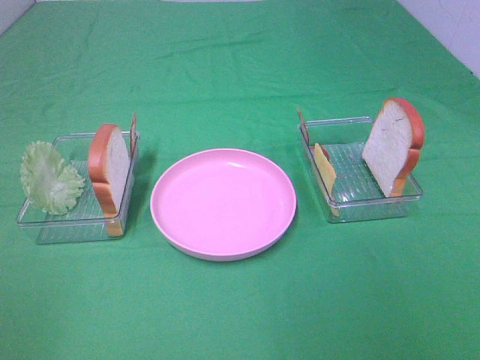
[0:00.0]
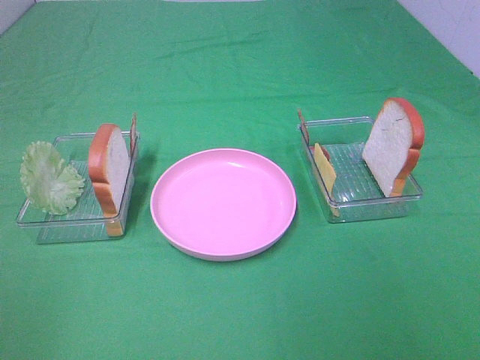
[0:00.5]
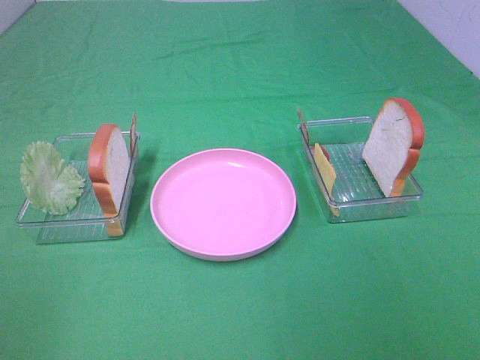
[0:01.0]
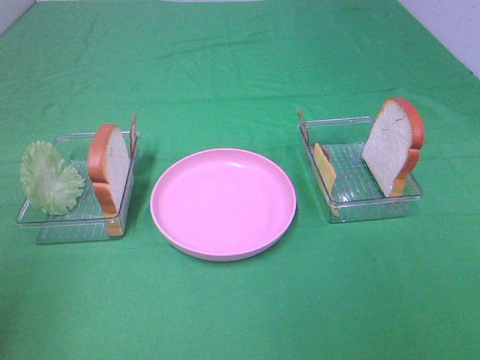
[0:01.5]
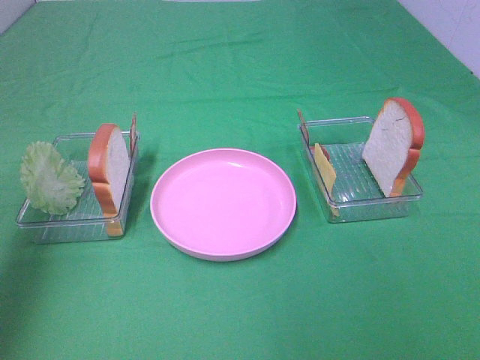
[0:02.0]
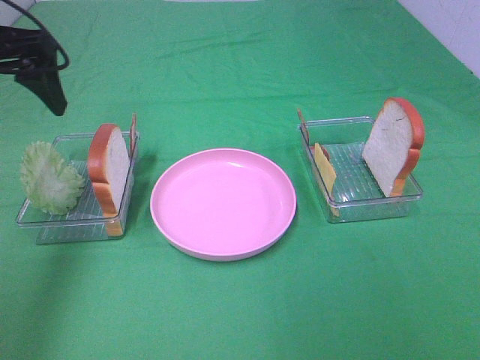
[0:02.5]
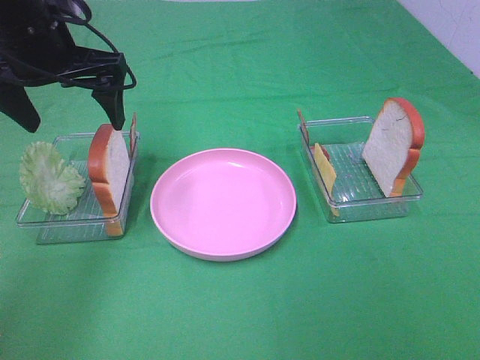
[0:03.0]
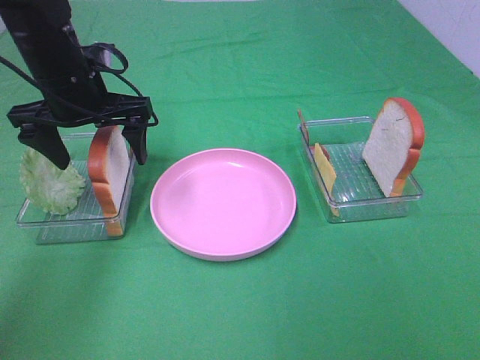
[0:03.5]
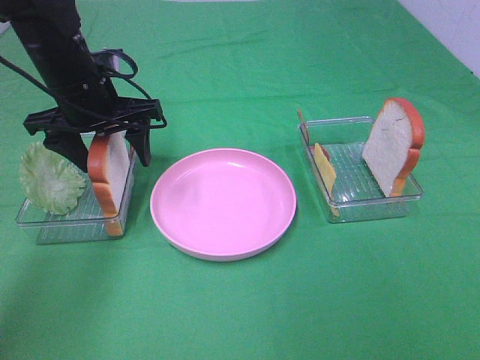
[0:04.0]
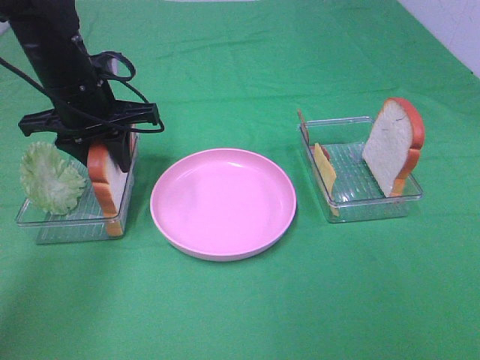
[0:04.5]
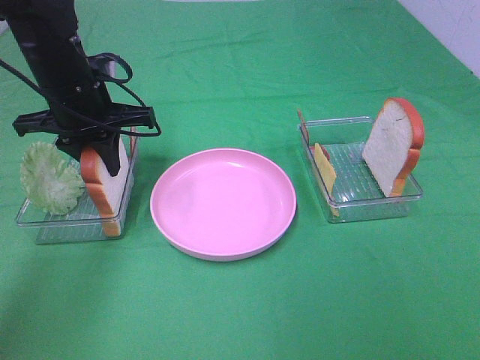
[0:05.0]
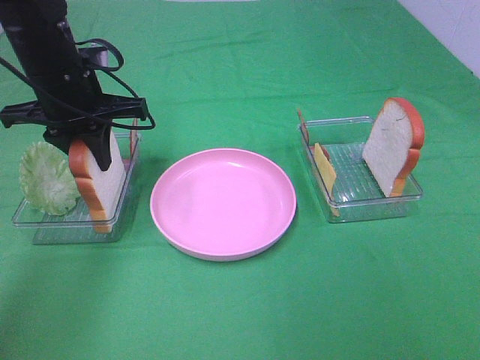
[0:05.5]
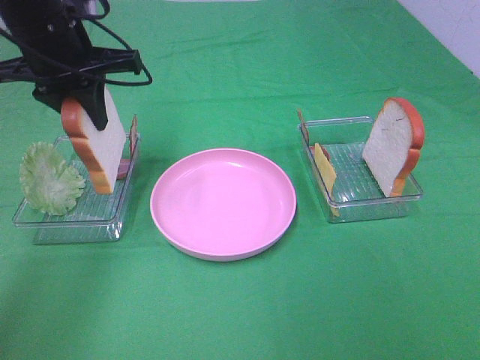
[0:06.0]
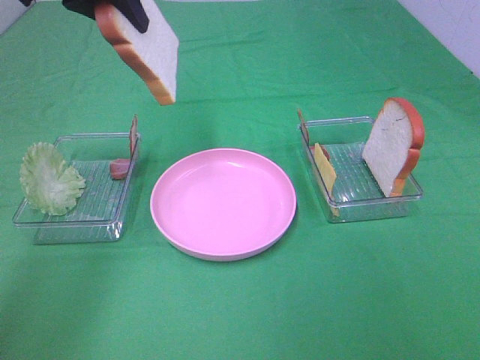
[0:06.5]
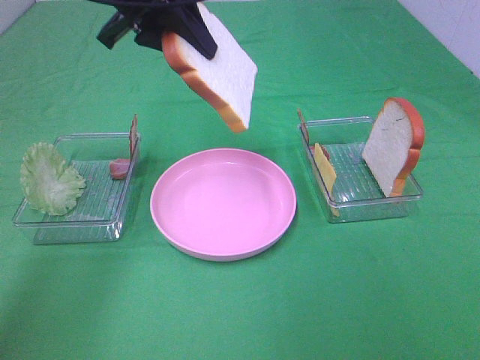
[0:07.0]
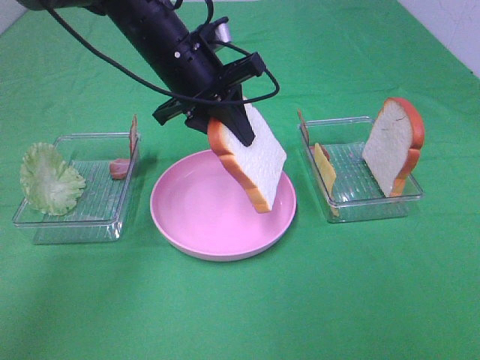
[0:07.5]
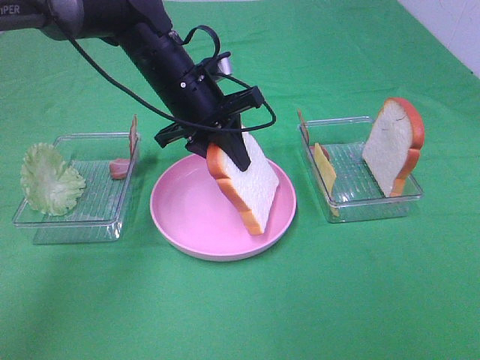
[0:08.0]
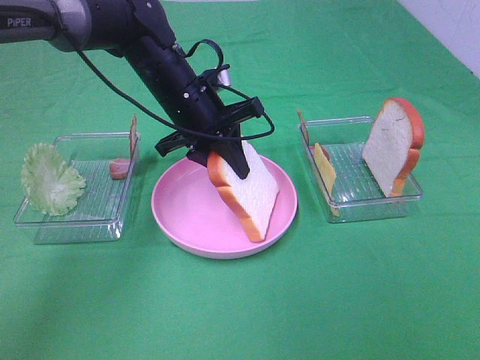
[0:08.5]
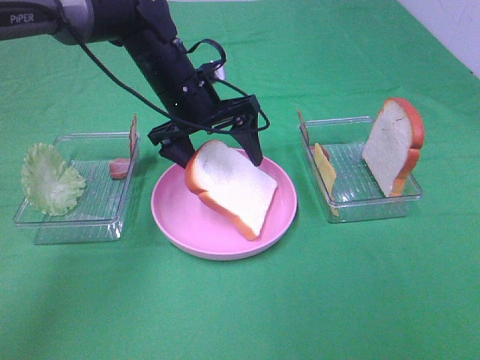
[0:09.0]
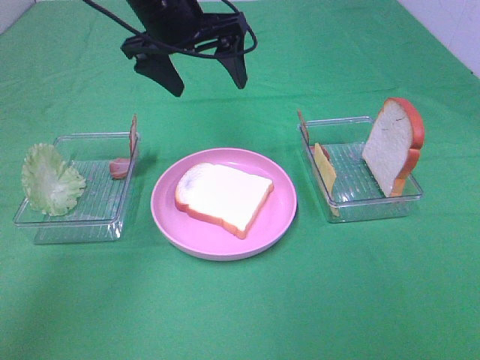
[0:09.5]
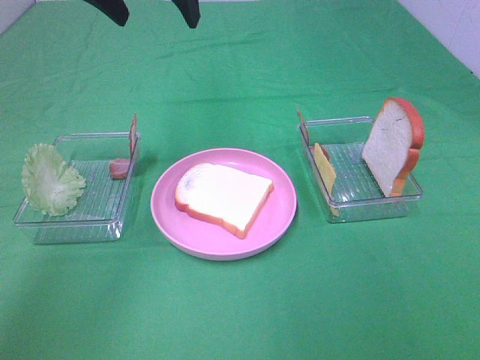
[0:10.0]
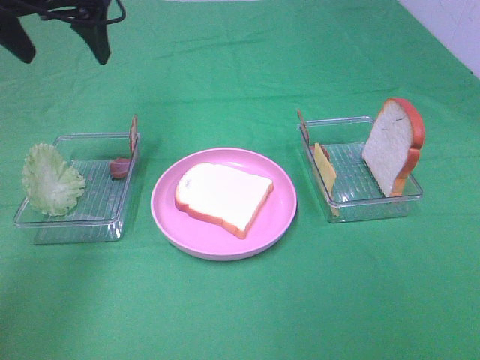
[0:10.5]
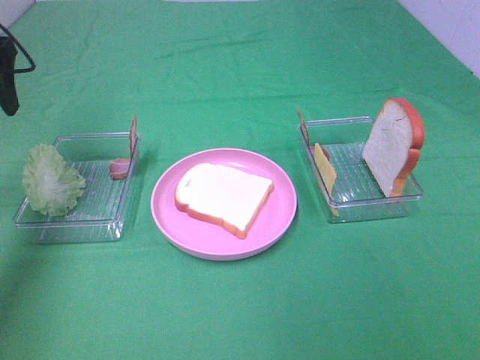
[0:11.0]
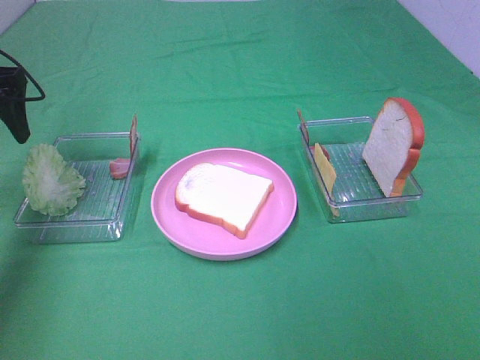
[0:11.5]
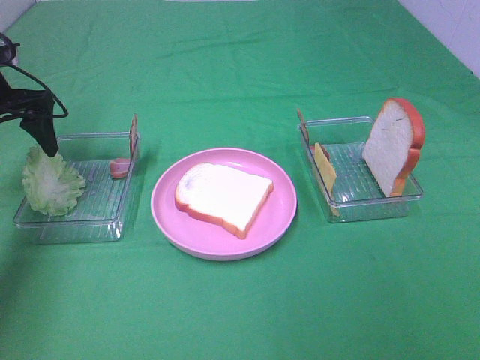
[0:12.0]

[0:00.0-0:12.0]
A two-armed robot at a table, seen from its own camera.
Task of the whole recording: Make sandwiches.
Step, 0:00.0 to 0:04.5: Left hand:grab the bread slice.
Step, 0:05.0 to 0:09.0: Left hand:place the bread slice on the plate.
0:00.0 to 0:02.0: The left gripper travels forward by some 25 cm.
0:02.0 to 0:04.0: The left gripper goes approximately 25 cm forward, downward and to the right.
0:04.0 to 0:06.0: The left gripper travels upward by approximately 10 cm, and closes up.
0:06.0 to 0:08.0: The left gripper is displaced to the right and downward by roughly 15 cm.
0:08.0 to 0:10.0: The left gripper heads upward, covering some 15 cm, and opens.
0:10.0 to 0:12.0: The left gripper shifts roughly 25 cm to the left and downward.

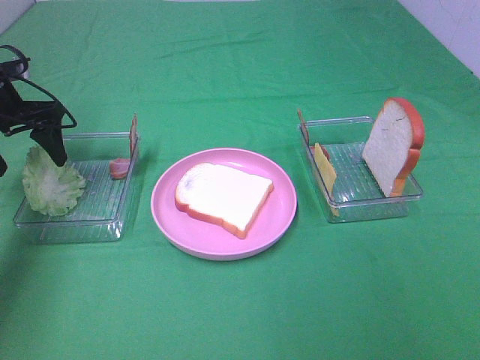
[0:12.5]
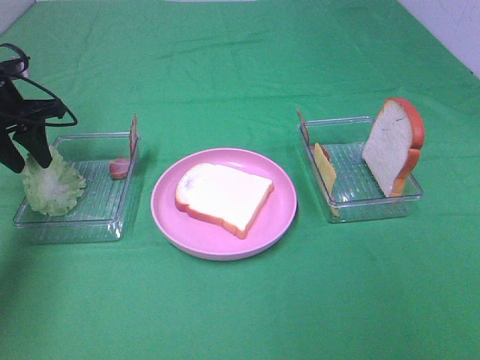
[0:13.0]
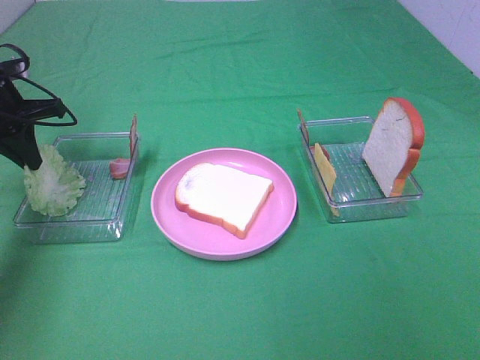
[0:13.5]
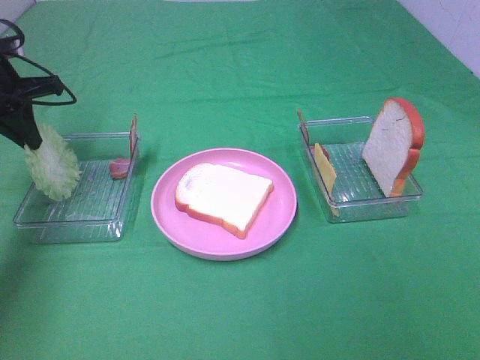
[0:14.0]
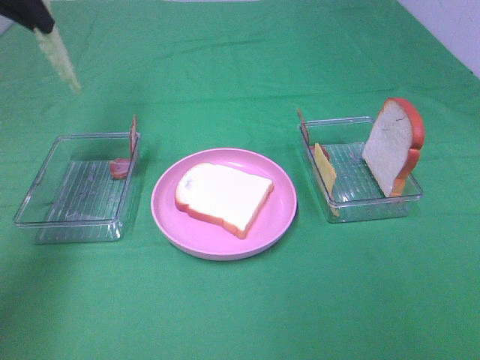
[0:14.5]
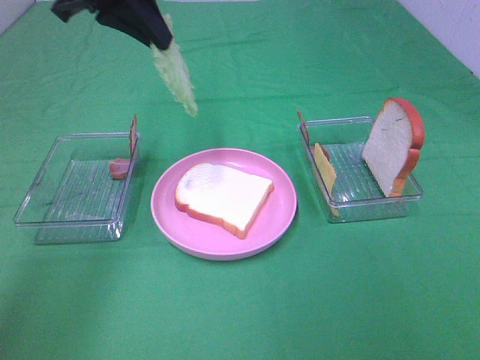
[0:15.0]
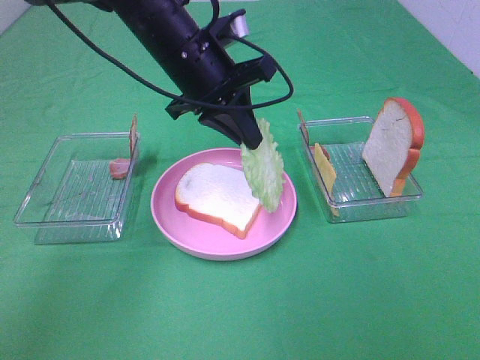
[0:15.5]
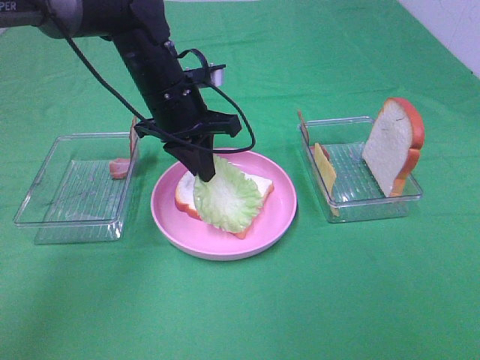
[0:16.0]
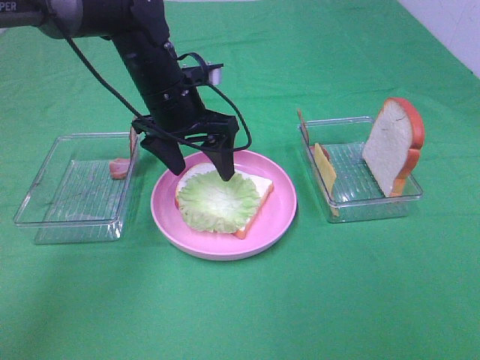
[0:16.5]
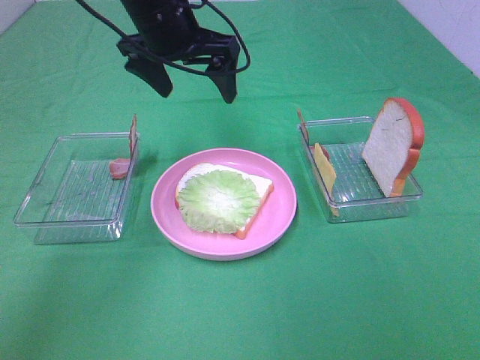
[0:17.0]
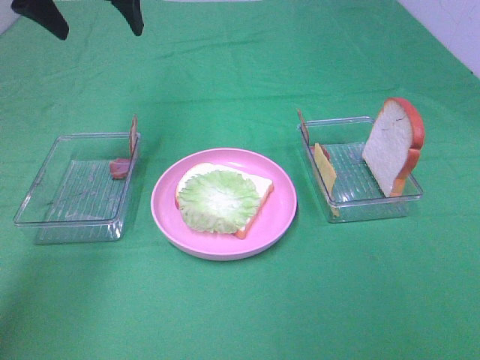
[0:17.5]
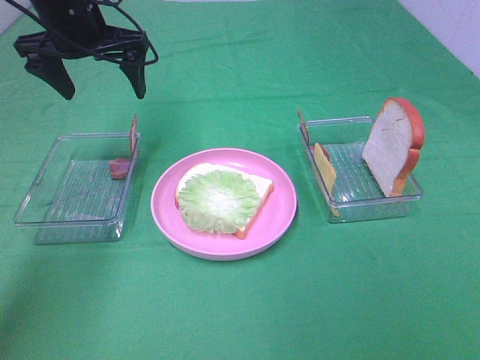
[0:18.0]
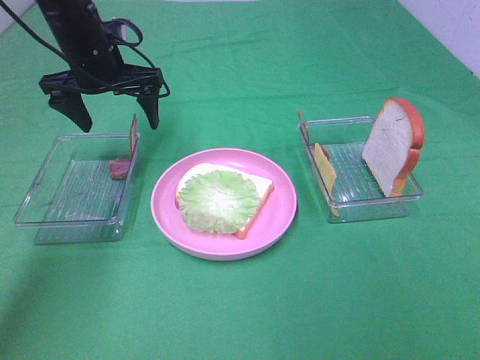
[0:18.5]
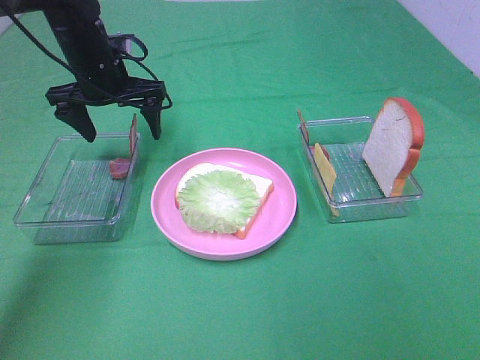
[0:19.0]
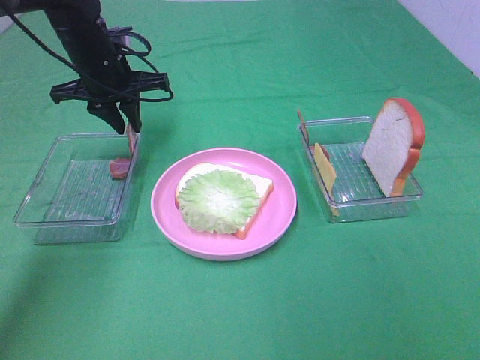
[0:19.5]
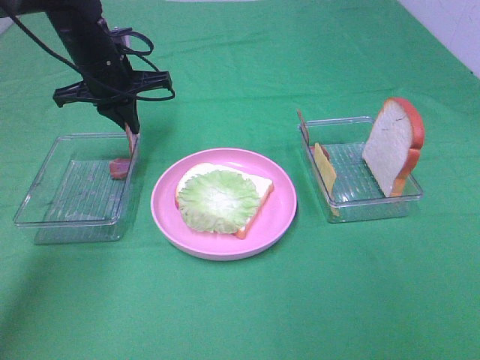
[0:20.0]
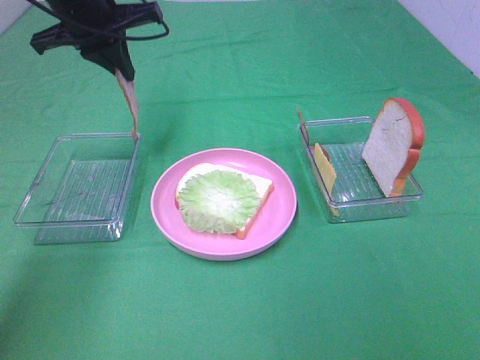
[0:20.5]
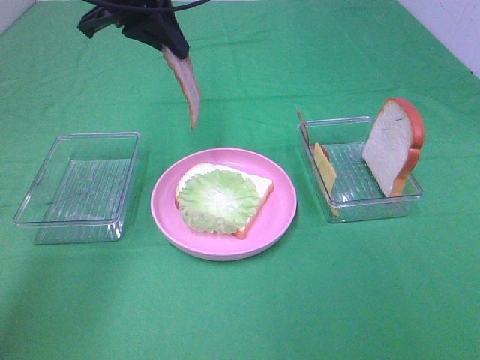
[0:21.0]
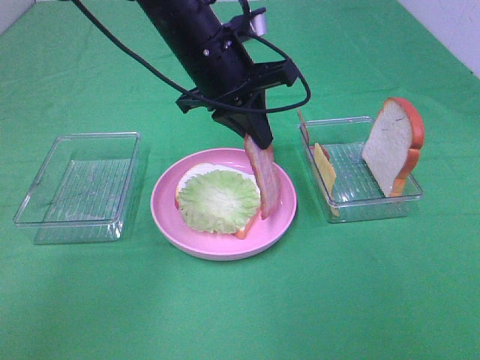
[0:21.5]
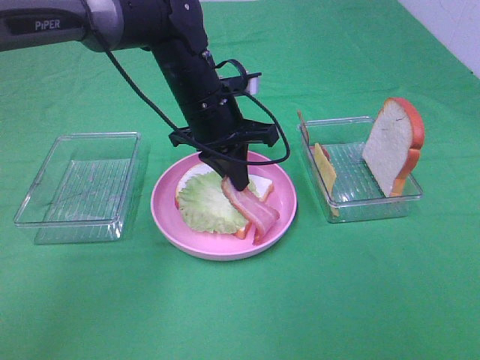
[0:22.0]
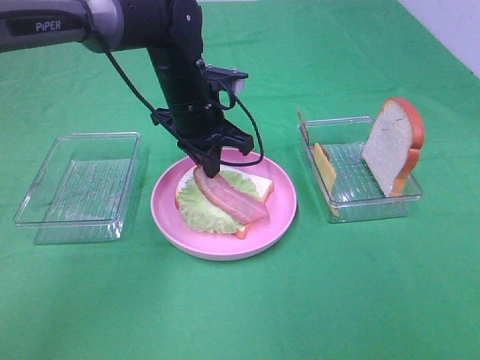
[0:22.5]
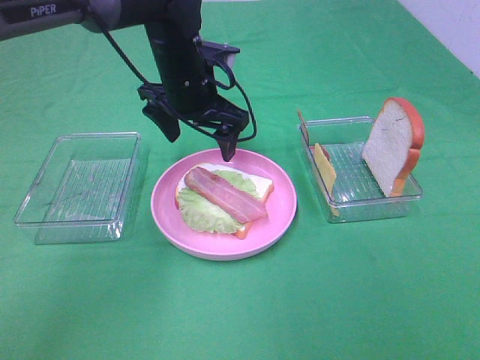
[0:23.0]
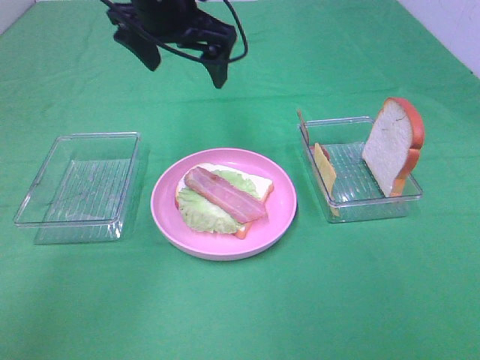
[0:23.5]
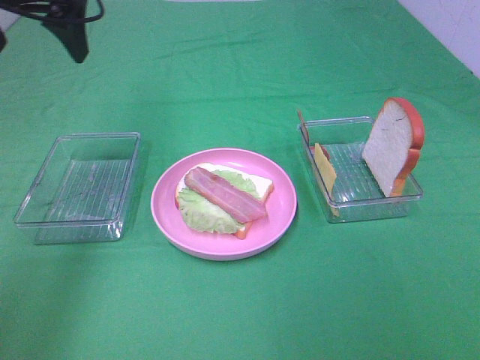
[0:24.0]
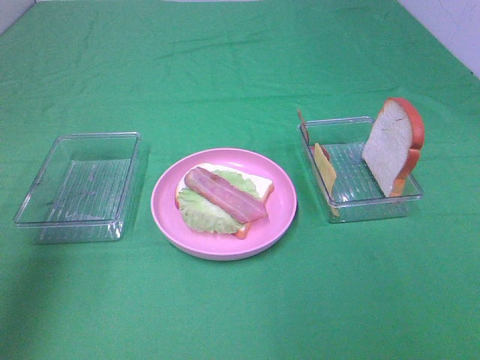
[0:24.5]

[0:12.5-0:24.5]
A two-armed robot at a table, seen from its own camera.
Task of the whole recording: Make sandwiches.
Step, 0:14.0 to 0:16.5: Left hand:place the lettuce slice on the bread slice.
Step, 0:17.0 to 0:19.5: Left hand:grab the bacon.
Step, 0:20.0 to 0:22.5: Left hand:place bacon on lettuce slice.
0:12.5 to 0:14.5: The left gripper goes some 15 cm upward, and closes up.
0:14.5 to 0:16.5: The left gripper goes about 25 cm to the right and downward, and opens.
0:16.5 to 0:18.5: The left gripper travels to the left by some 10 cm, and travels upward and back again, approximately 15 cm each way.
0:18.5 to 0:20.5: The left gripper heads upward, covering roughly 10 cm, and closes.
0:20.5 to 0:22.5: The left gripper moves downward and to the right, approximately 20 cm.
0:22.5 to 0:24.5: The left gripper heads to the left, backward and upward, covering approximately 35 cm, and opens its fingers.

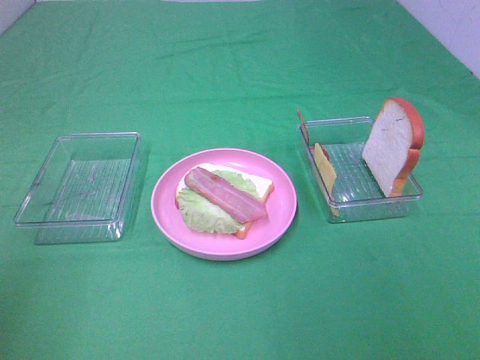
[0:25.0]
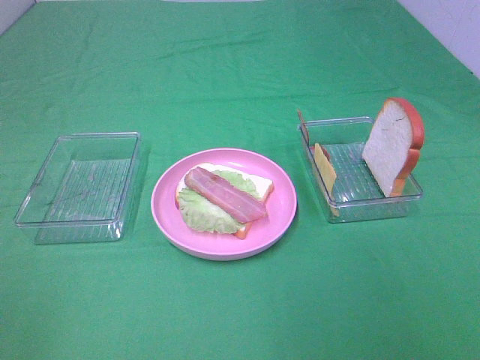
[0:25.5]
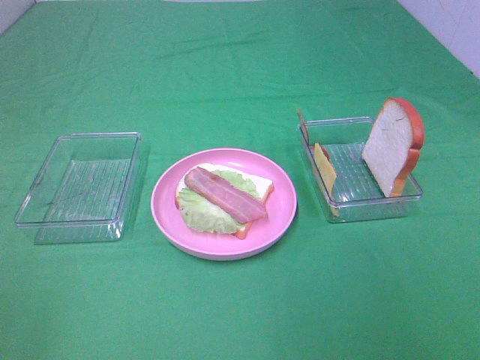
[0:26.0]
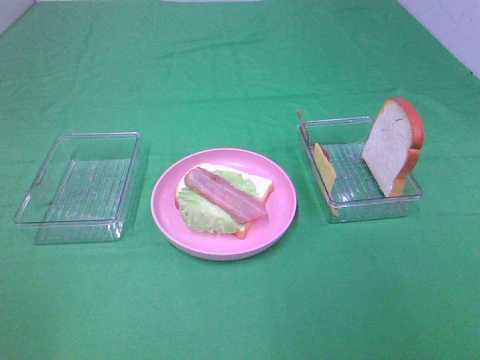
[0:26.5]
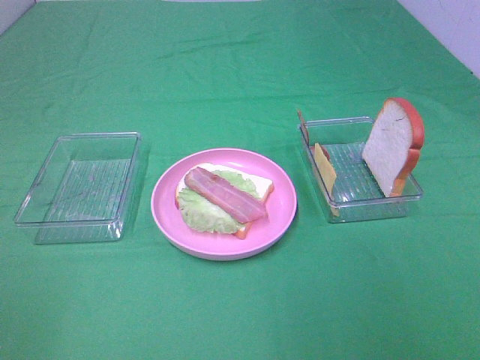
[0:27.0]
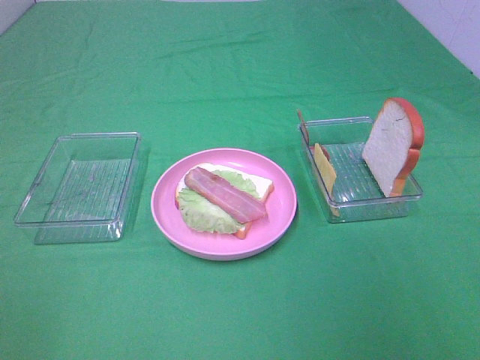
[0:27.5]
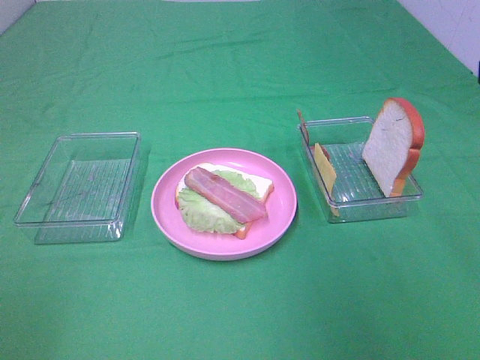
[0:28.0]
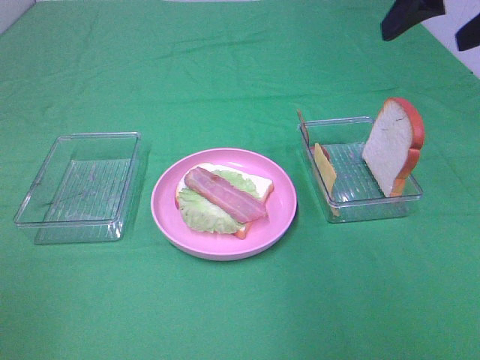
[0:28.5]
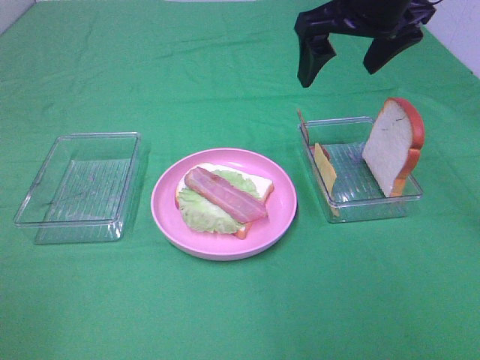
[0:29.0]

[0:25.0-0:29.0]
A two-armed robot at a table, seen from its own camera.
Task of the whole recording: Make sandwiches.
0:27.0 to 0:29.0: The right gripper travels forward by about 40 cm.
